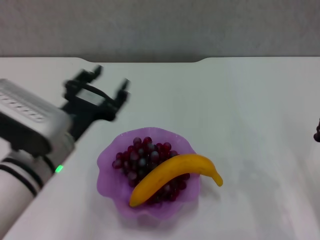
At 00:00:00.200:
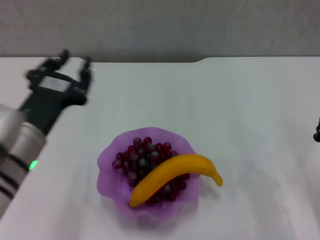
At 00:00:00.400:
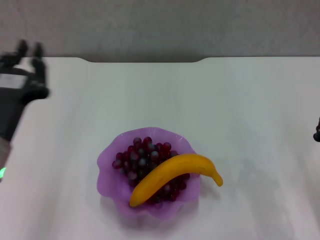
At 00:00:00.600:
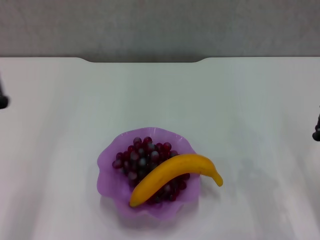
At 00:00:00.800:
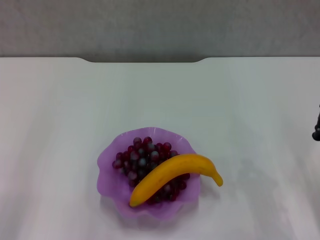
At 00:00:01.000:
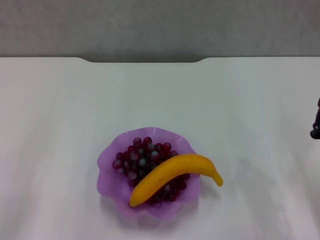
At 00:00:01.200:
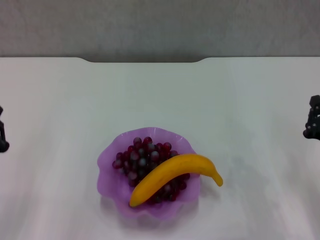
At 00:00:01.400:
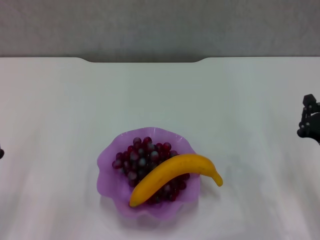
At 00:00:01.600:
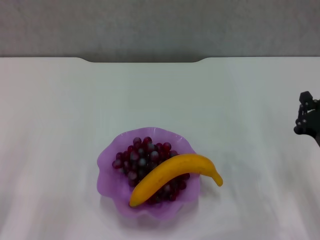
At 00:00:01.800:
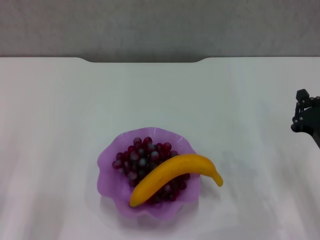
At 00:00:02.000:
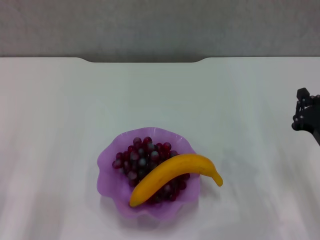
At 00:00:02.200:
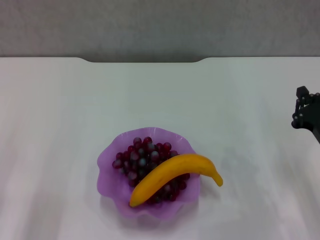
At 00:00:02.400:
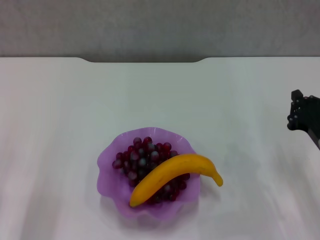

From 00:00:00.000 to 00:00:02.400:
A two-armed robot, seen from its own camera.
From 00:00:00.000 to 00:00:01.200: The left gripper shifts roughly 15 cm to the left and downward, and closes.
From 00:00:01.200 to 00:00:02.400: There are only small adjustments of the grippers.
